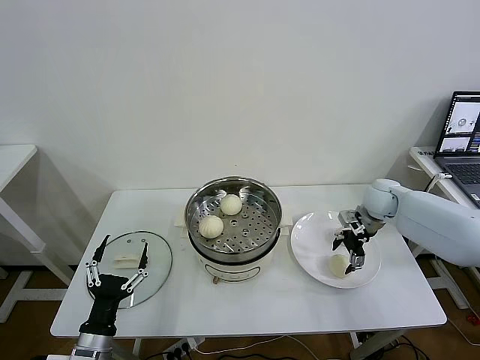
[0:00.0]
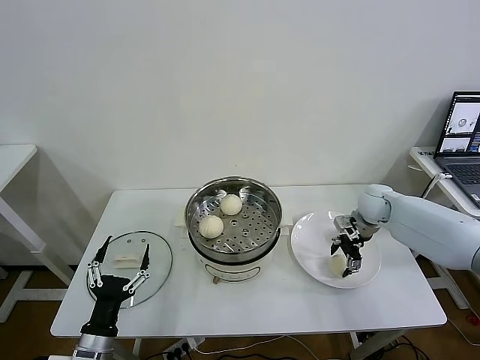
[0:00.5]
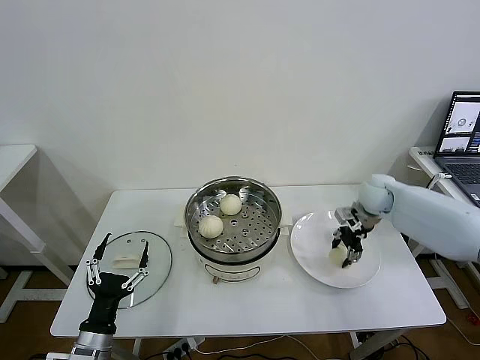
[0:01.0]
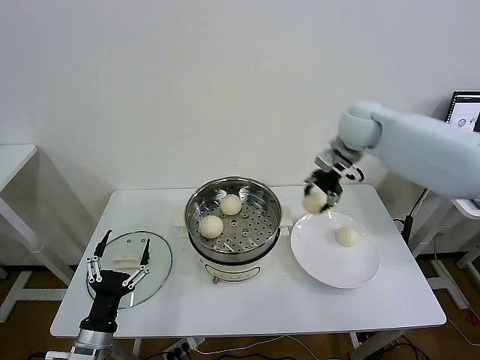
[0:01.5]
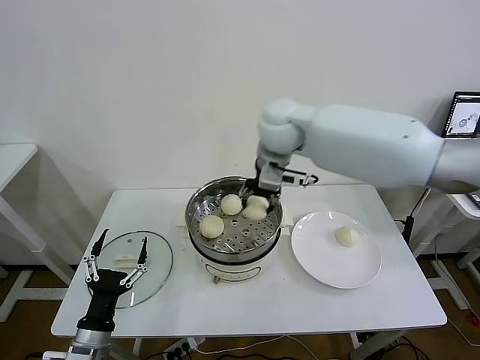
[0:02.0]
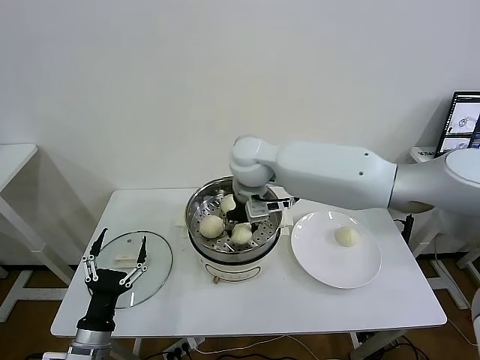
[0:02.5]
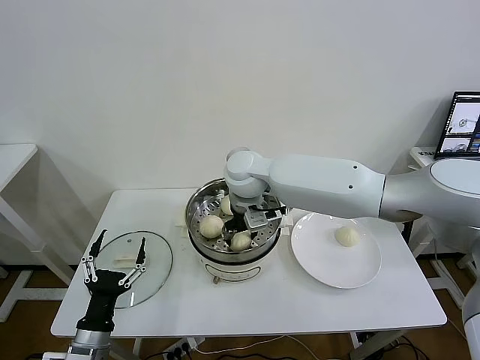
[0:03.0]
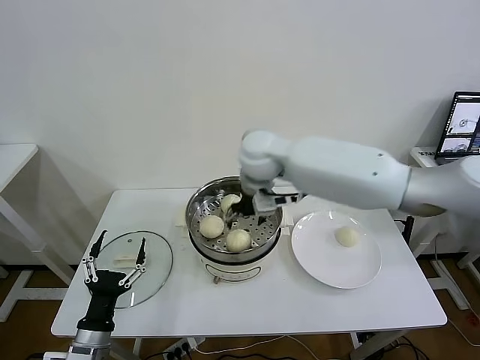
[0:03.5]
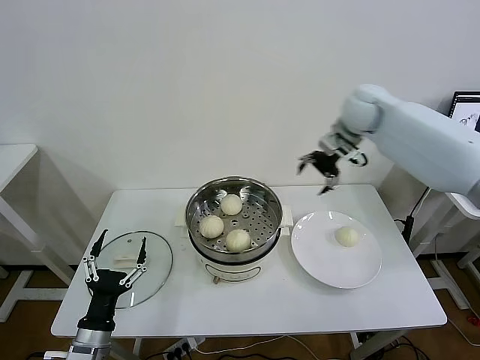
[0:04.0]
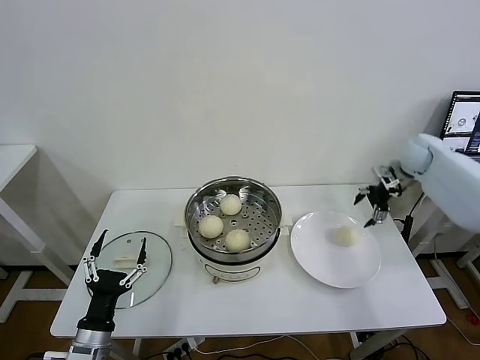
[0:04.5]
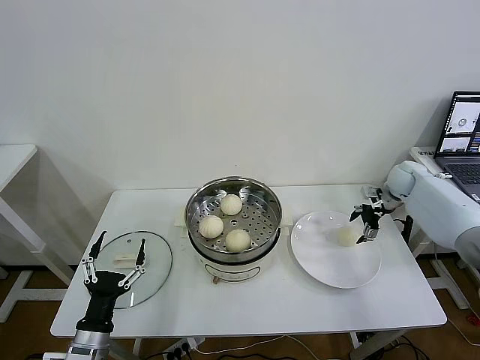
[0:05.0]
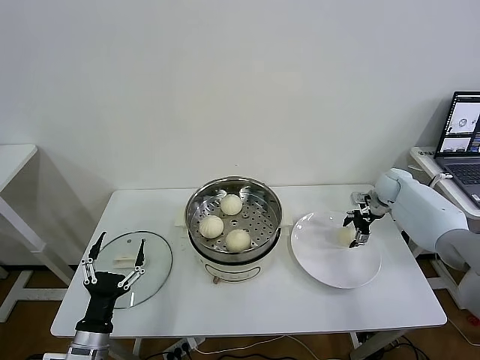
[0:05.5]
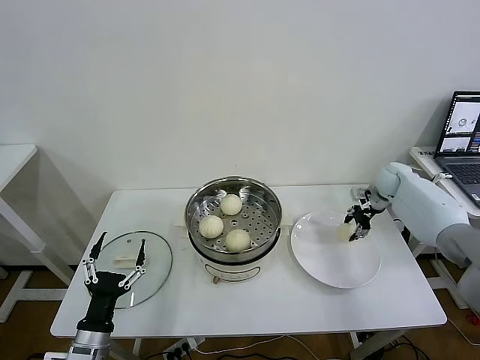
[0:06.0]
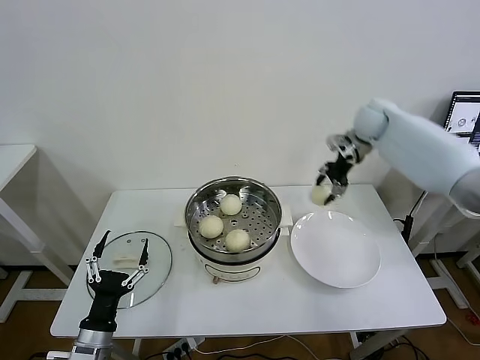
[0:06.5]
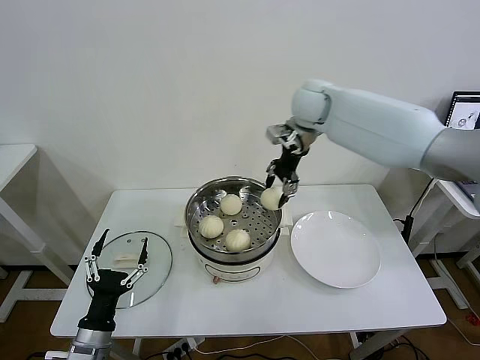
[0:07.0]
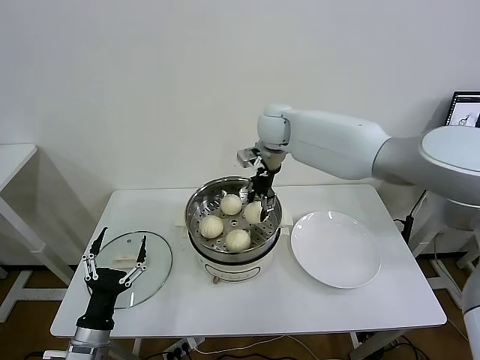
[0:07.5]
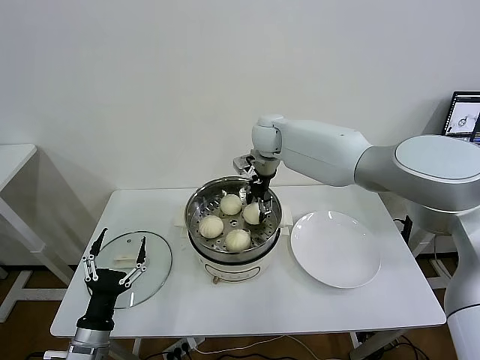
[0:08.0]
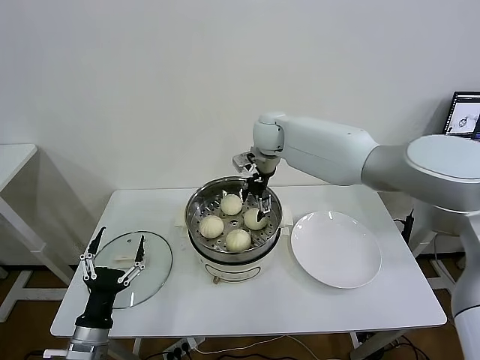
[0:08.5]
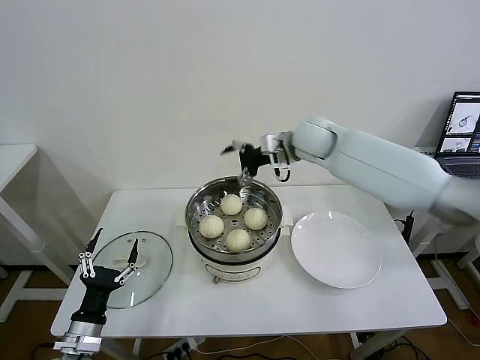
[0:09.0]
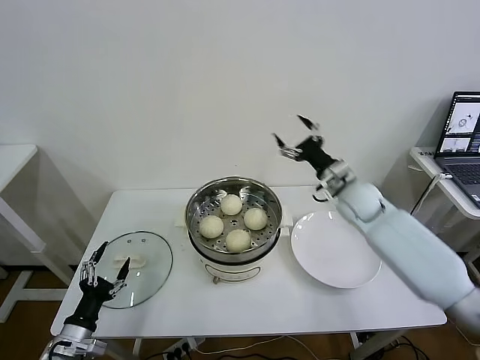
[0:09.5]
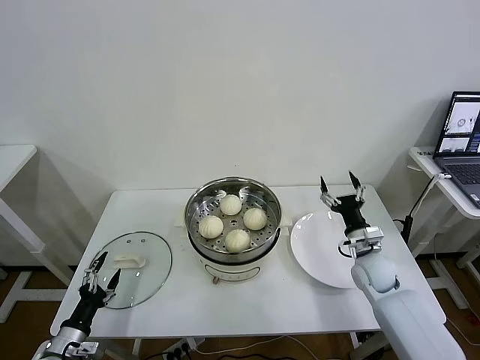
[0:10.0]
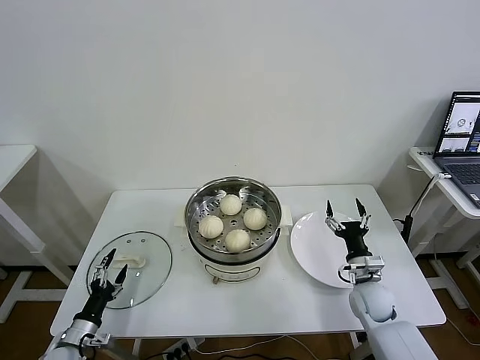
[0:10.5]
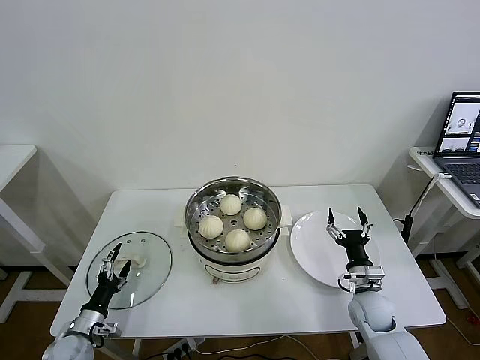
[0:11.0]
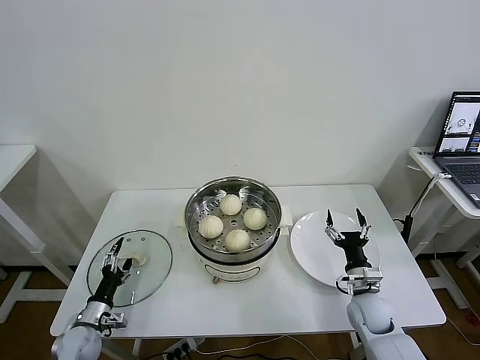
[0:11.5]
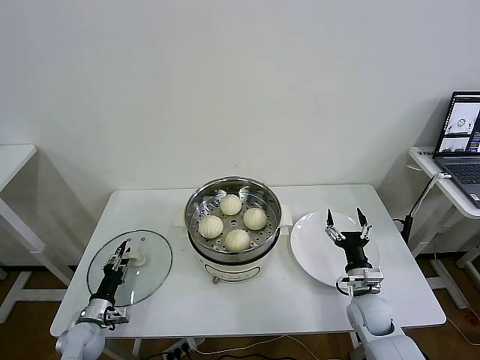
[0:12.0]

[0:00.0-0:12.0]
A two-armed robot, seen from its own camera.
Task of the whole recording: take steamed baozi put them in steamer then cover it.
Step, 0:01.0 to 0:03.0: Place the baozi on the steamer with right gripper.
Step, 0:03.5 to 0:05.5: Grasp the baozi in the plate with right gripper.
Step, 0:06.0 to 0:08.0: Place the baozi on the steamer with right gripper.
0:00.0 to 0:02.0: The right gripper goes approximately 35 cm to the left and upward, and closes.
0:02.0 to 0:04.0: The right gripper is displaced to the right by some 25 cm, and opens up.
0:04.0 to 0:06.0: The right gripper travels downward and to the right by approximately 25 cm, and closes.
0:06.0 to 0:08.0: The right gripper goes about 35 cm to the left.
0:08.0 to 0:10.0: The left gripper moves to the left and downward, approximately 15 cm, while the right gripper moves to the right, downward and backward, approximately 40 cm, and opens up.
0:10.0 to 0:12.0: The right gripper heads backward and downward, covering some 10 cm. Meanwhile the left gripper goes about 10 cm forward and downward, and closes.

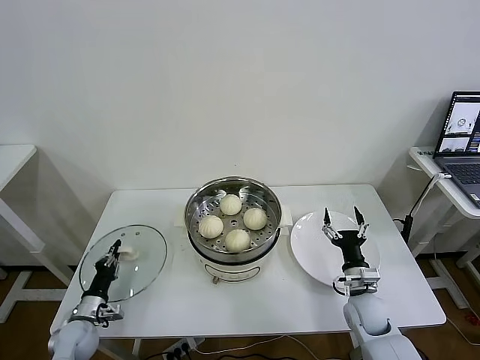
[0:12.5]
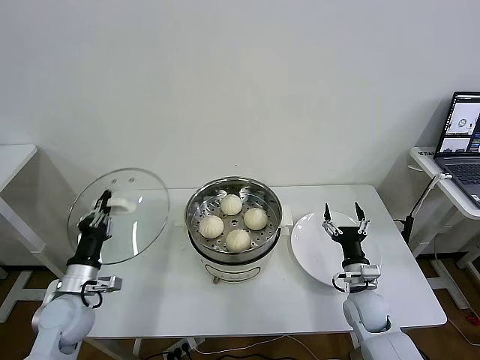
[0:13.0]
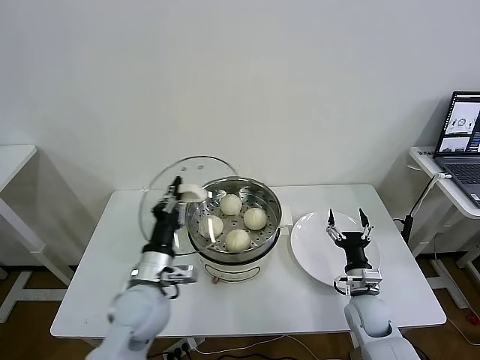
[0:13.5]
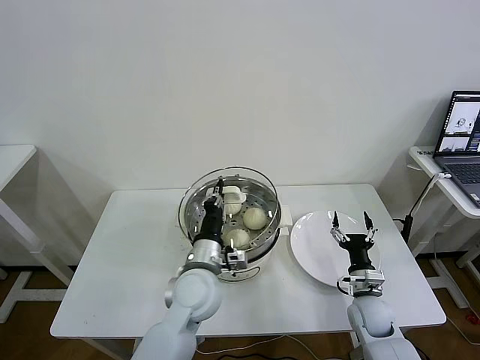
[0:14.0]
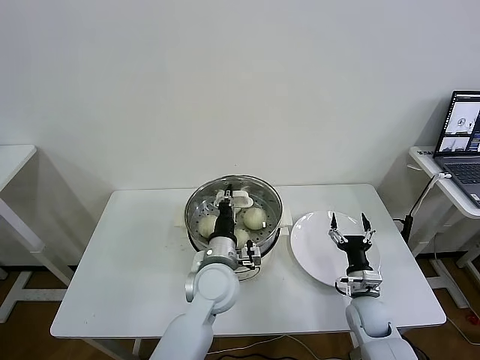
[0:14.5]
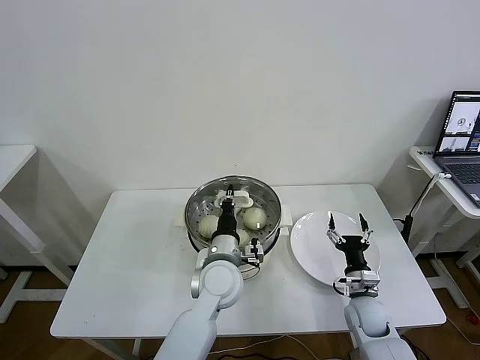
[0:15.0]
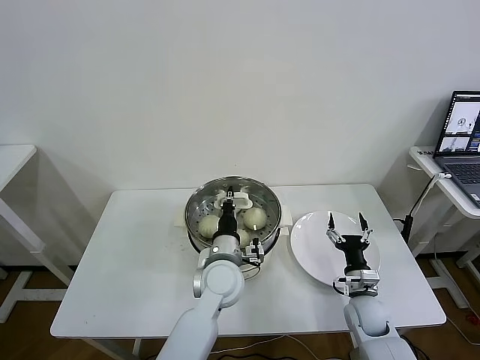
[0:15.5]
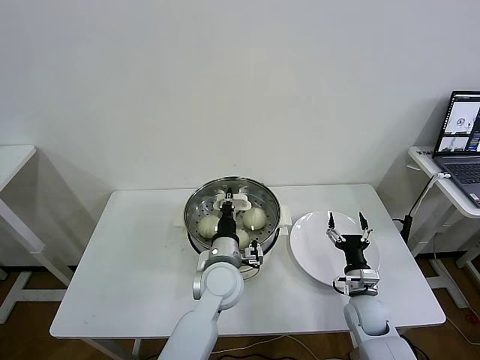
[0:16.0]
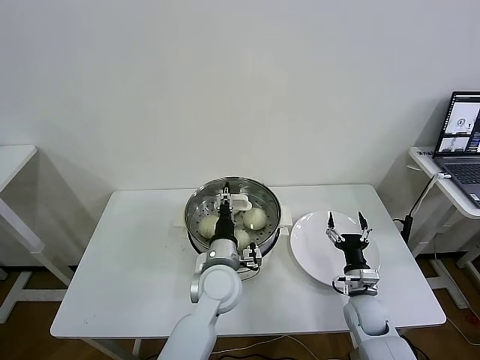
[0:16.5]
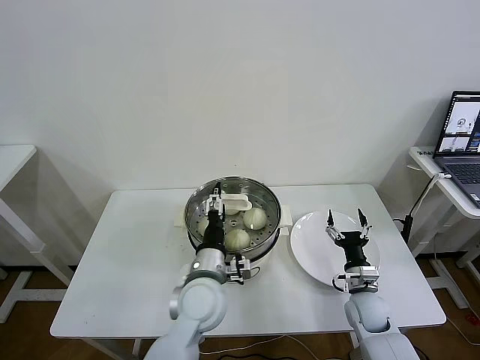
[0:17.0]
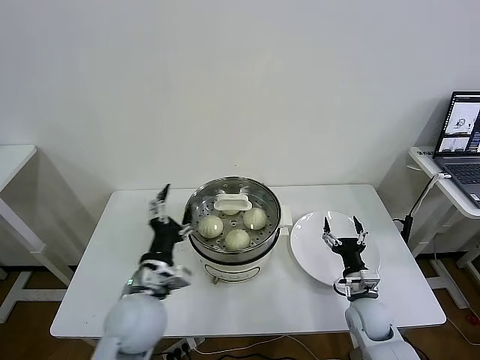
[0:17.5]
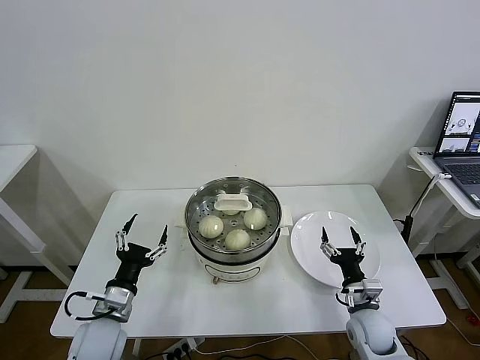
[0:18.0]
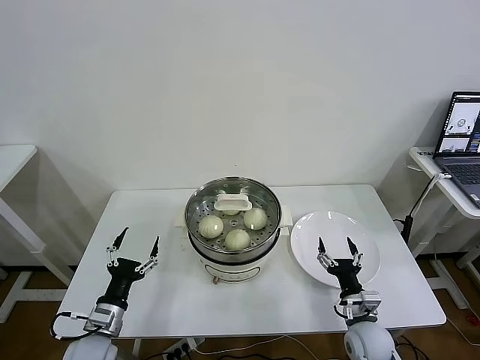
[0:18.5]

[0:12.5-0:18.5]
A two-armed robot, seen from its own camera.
Task of the whole recording: take steamed baozi put them in steamer then cover it.
Step, 0:12.5 to 0:16.0: Place the pot lid on the steamer with left gripper.
0:12.5 to 0:14.5: The left gripper goes some 40 cm to the right and upward.
0:14.5 to 0:16.5: The left gripper opens up.
0:16.5 to 0:18.5: The left gripper shifts about 30 cm to the left and backward, and opens its fingers, while the right gripper goes roughly 5 cm backward.
